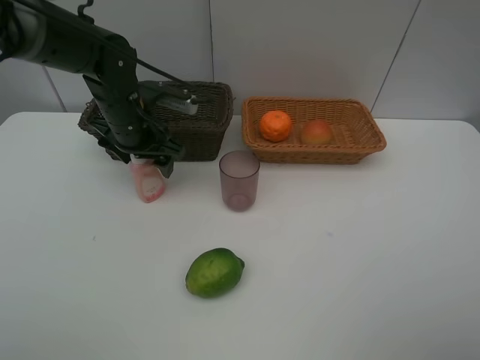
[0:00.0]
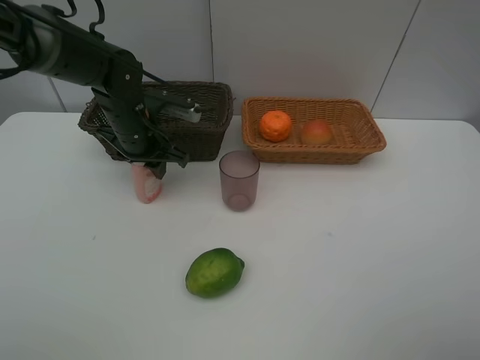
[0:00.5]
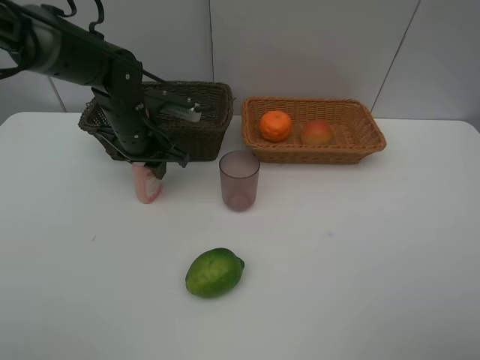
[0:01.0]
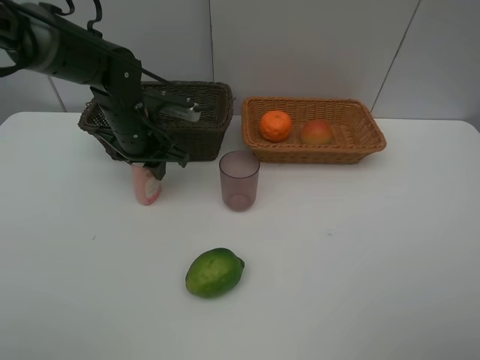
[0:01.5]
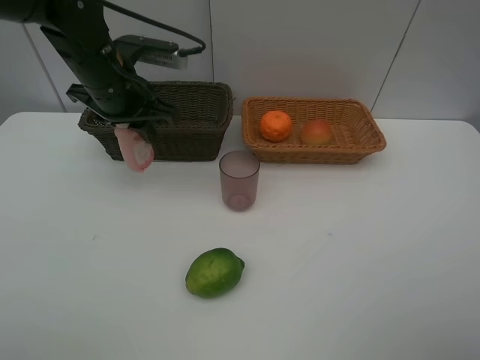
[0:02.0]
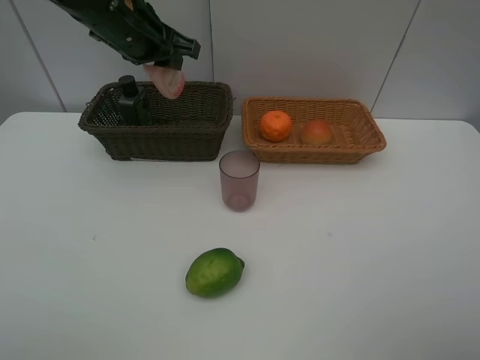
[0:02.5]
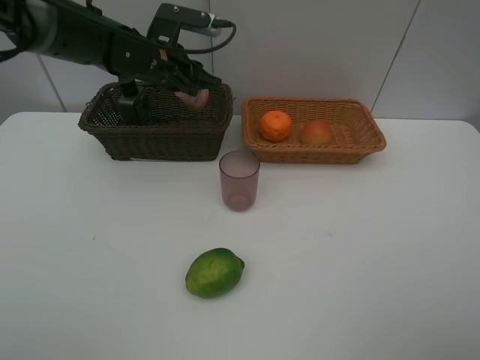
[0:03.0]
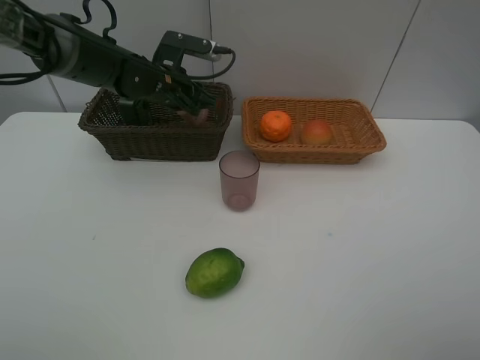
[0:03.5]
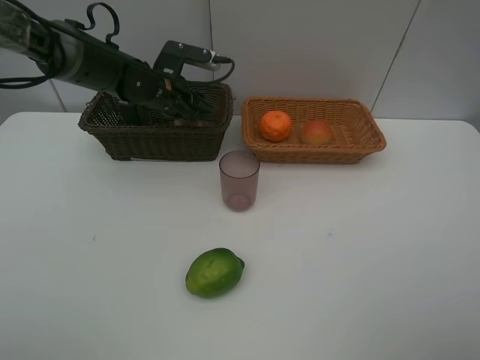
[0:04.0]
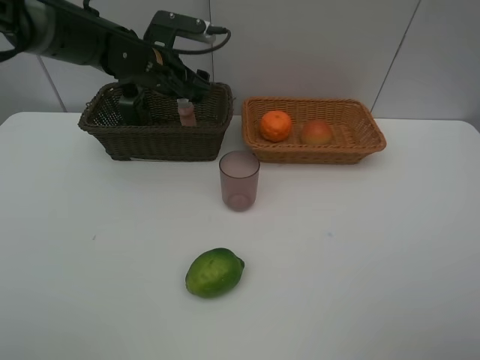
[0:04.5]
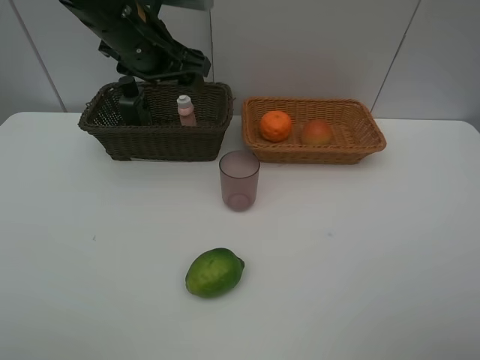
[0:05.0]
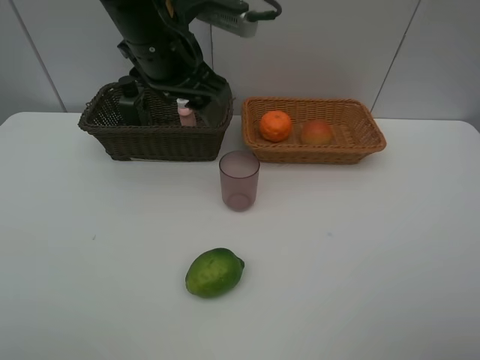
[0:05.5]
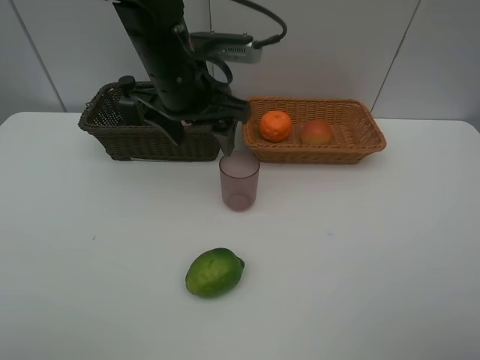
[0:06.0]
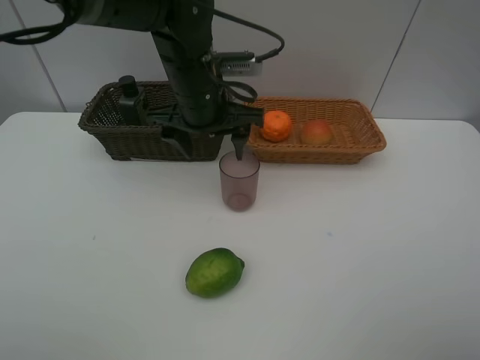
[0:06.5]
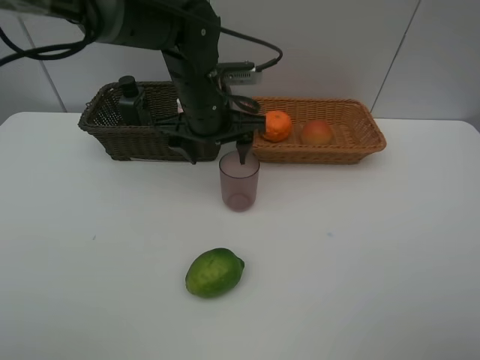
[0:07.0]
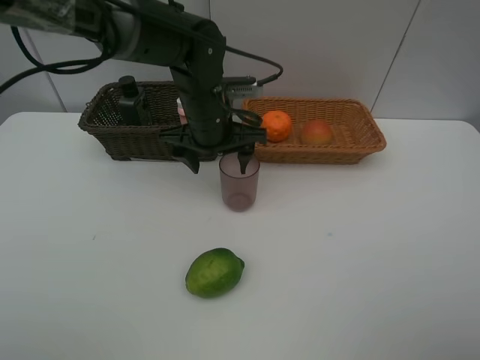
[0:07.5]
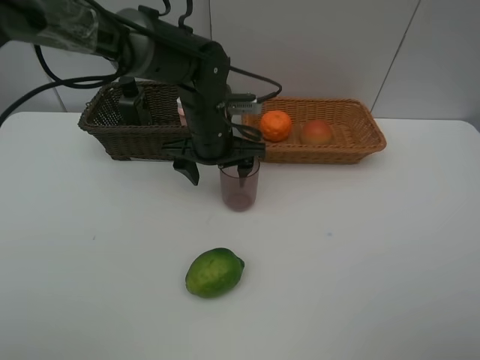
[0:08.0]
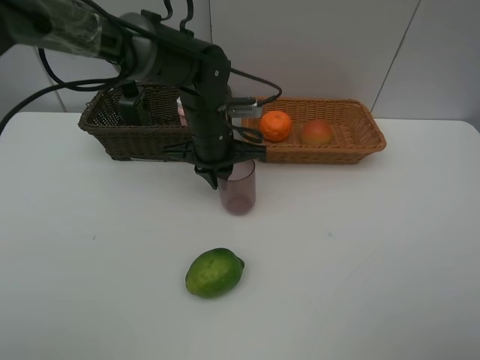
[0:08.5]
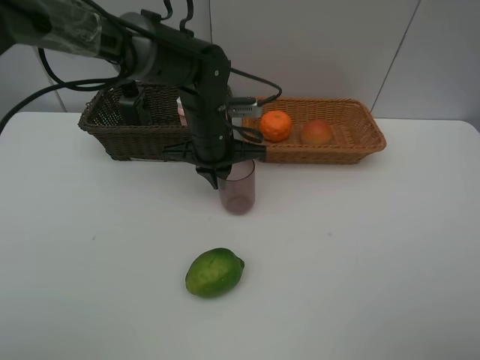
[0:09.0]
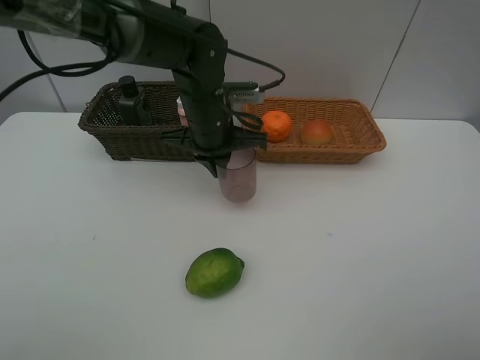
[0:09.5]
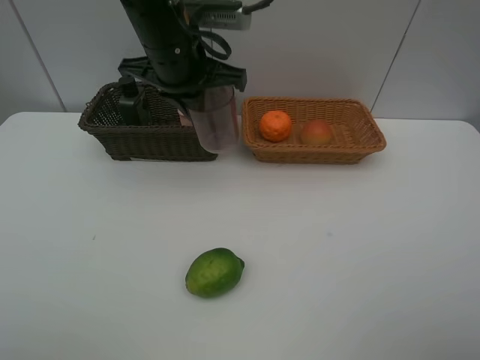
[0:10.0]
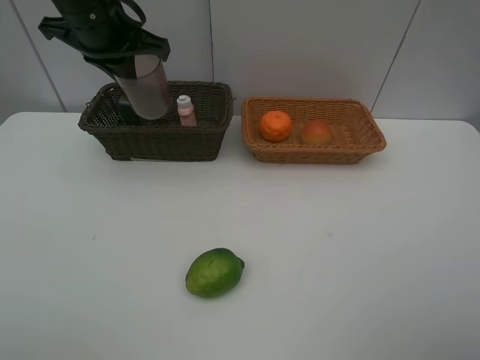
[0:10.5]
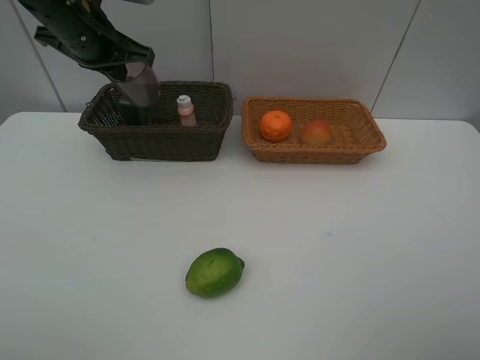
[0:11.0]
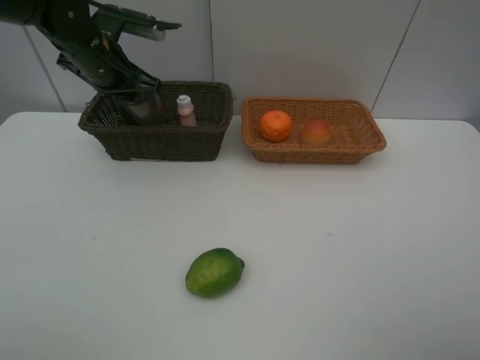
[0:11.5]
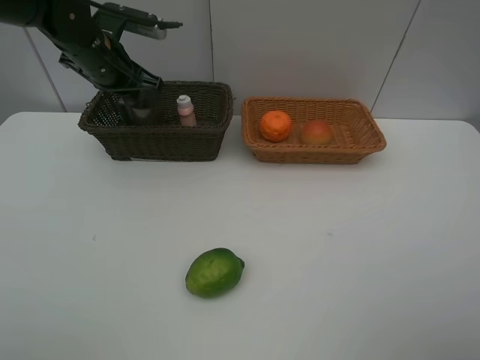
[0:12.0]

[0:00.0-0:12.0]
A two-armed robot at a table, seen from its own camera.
Task of the whole recording: place multiple objects separately in different baskets.
0:00.0 to 0:02.0: The left gripper travels upward by roughly 10 cm, and closes up.
0:02.0 to 0:04.0: The left gripper heads forward and downward, covering about 10 cm.
0:04.0 to 0:06.0: The left gripper heads backward, upward and to the right, covering roughly 15 cm.
0:06.0 to 0:08.0: The left gripper travels downward by approximately 10 cm.
0:08.0 to 0:10.0: The left gripper goes approximately 15 cm upward, and closes.
0:10.0 to 0:12.0: The left gripper heads to the left, forward and downward, covering approximately 15 cm.

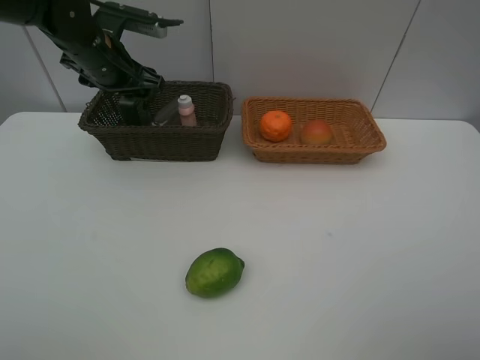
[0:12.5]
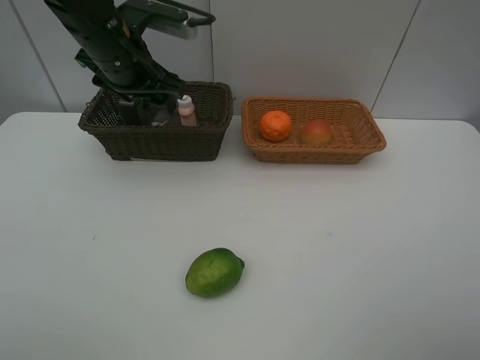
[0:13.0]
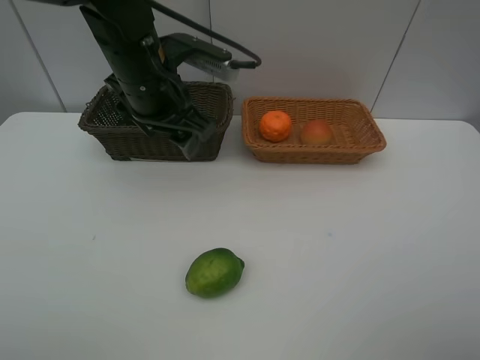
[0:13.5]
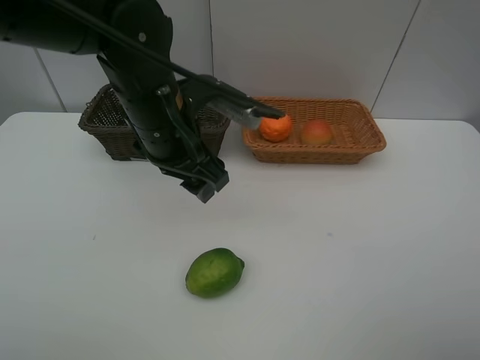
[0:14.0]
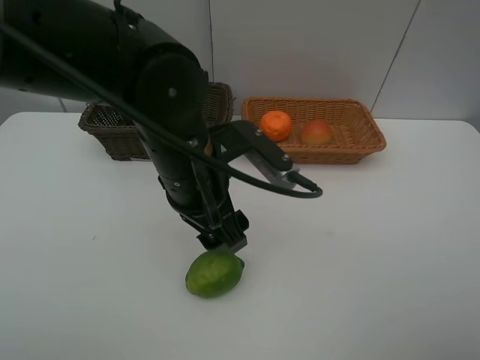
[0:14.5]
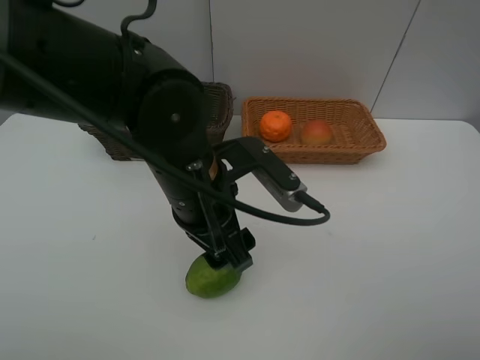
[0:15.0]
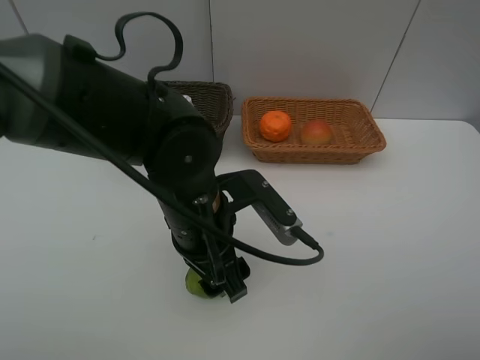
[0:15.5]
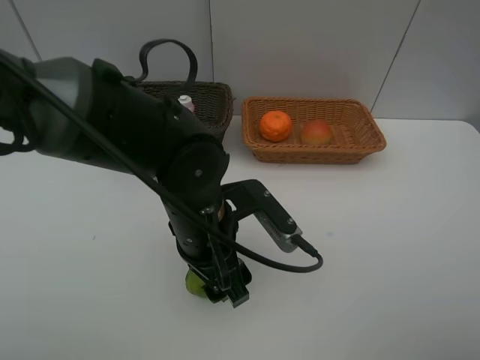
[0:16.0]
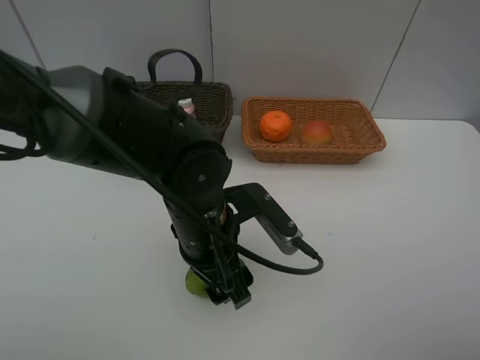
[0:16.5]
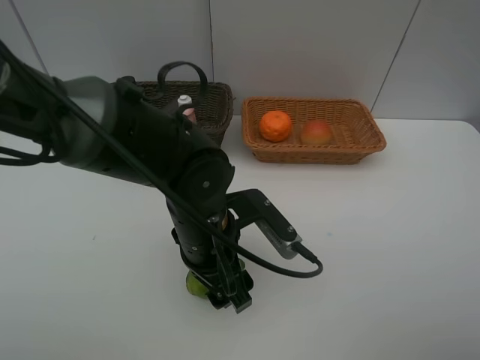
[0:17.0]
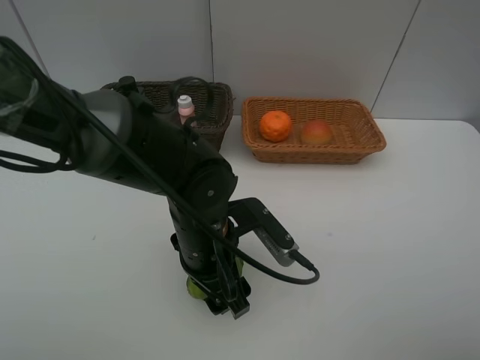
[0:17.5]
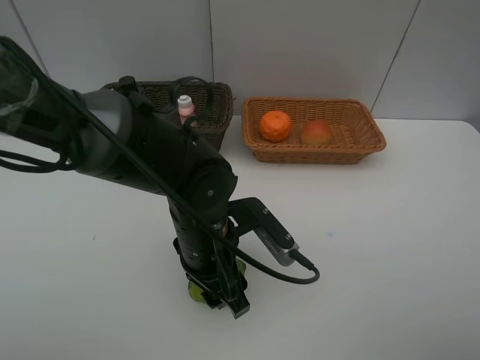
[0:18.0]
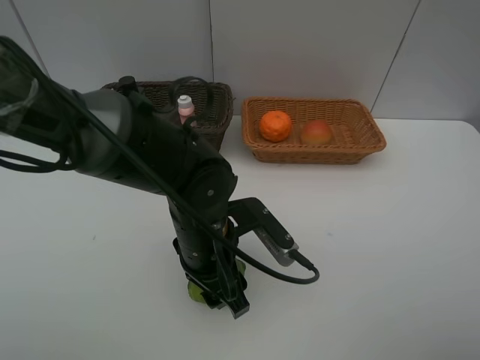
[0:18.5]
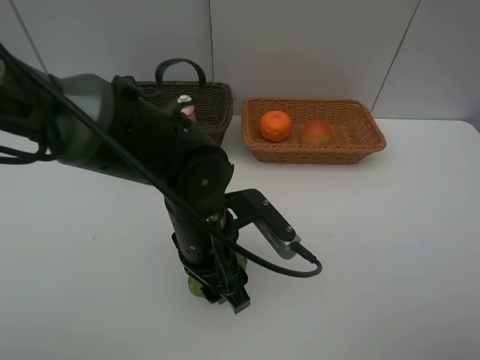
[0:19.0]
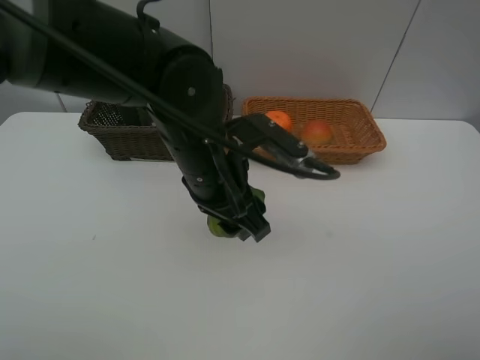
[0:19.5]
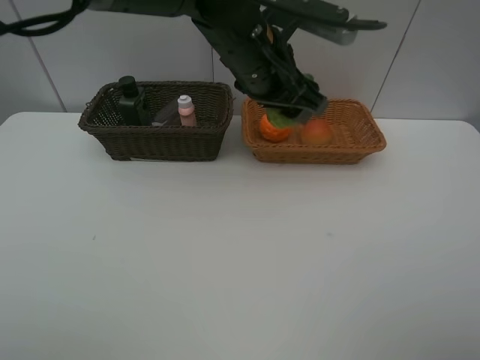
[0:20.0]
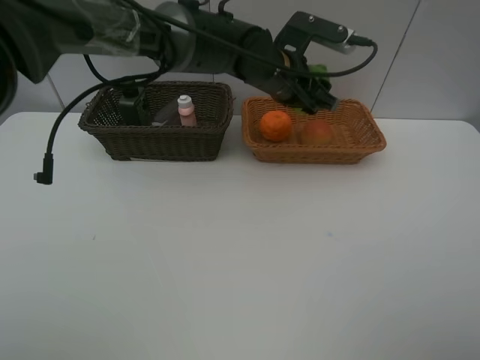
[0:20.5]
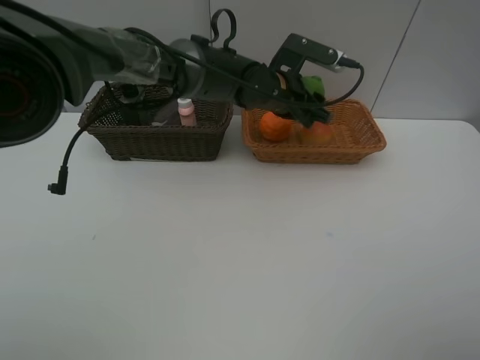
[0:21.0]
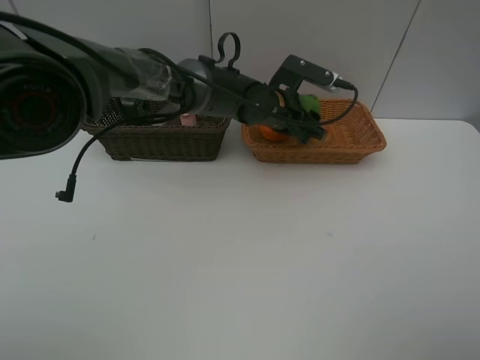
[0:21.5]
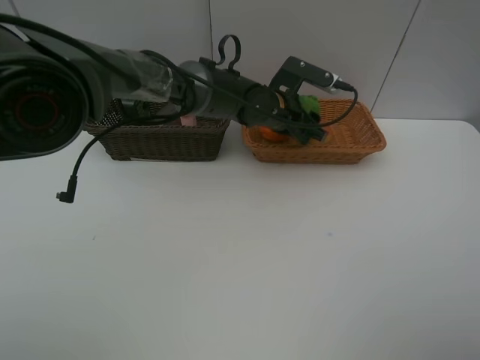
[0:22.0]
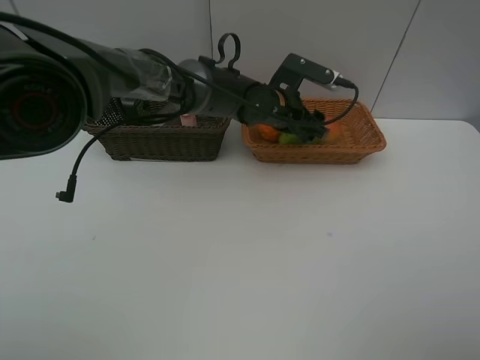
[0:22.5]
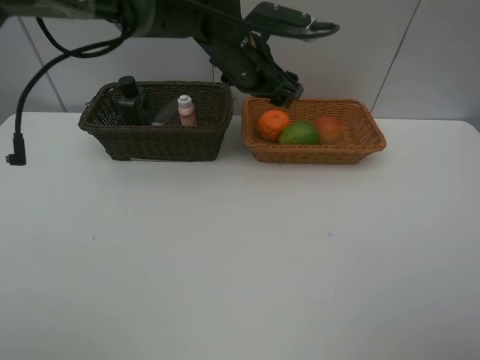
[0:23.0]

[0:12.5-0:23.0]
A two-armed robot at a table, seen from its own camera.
Task of the whole recording: place multiple objects separately in different baskets.
0:12.5 to 0:14.5: The left gripper heads backward and to the right, covering approximately 25 cm.
0:14.5 to 0:16.5: The left gripper moves downward, some 5 cm.
0:16.5 to 0:19.0: The grippers make only small movements.
0:19.0 to 0:21.0: The left gripper travels forward by roughly 20 cm.
0:21.0 to 0:23.0: The left gripper heads to the left and upward, covering about 10 cm.

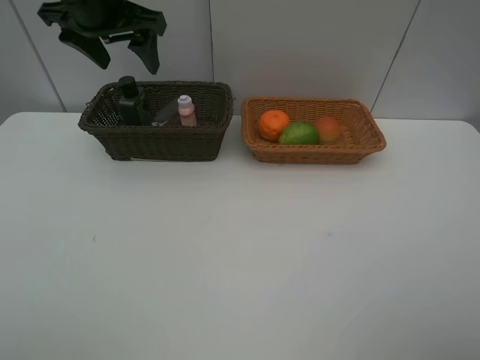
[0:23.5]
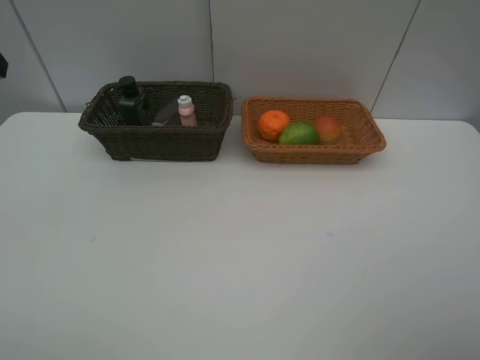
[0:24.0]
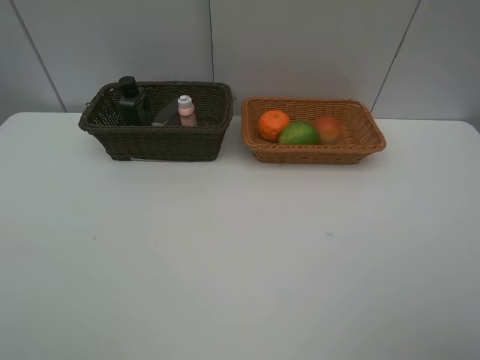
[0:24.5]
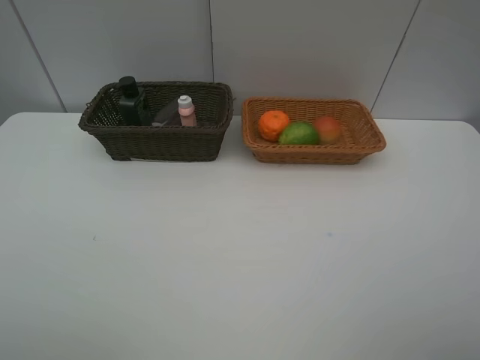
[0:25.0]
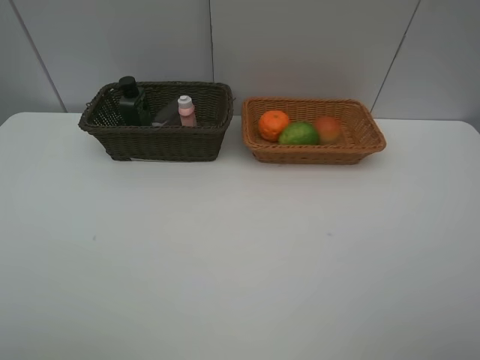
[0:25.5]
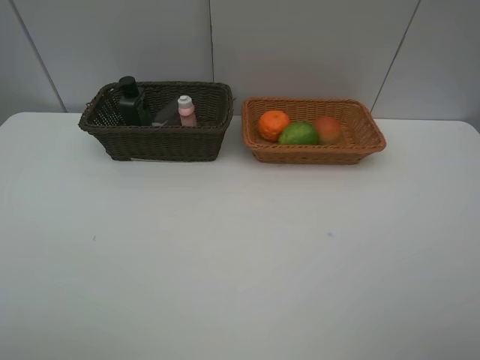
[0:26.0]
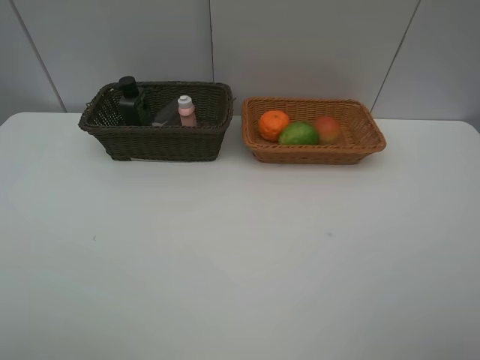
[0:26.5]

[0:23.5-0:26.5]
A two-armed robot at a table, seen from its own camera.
Task of the whole recording: place multiple objects separately in different baskets.
0:23.5 to 0:25.0: The left gripper travels backward by some 35 cm.
